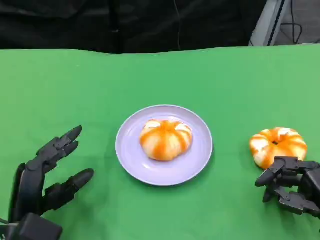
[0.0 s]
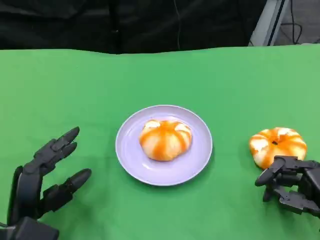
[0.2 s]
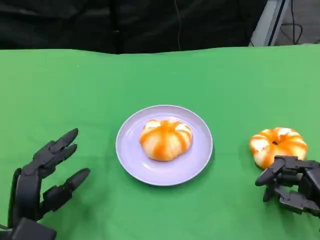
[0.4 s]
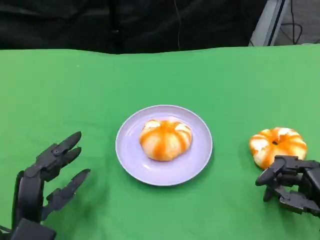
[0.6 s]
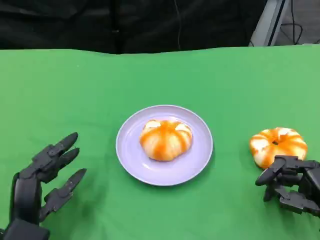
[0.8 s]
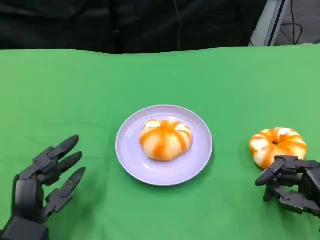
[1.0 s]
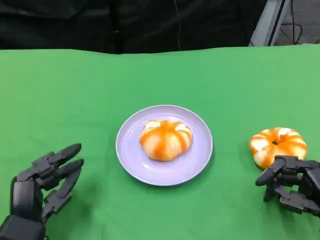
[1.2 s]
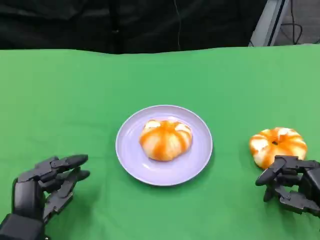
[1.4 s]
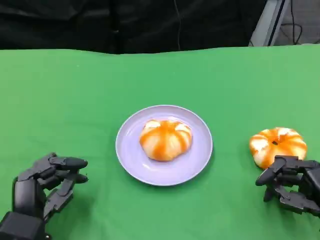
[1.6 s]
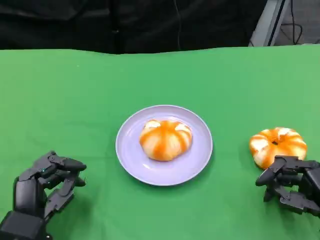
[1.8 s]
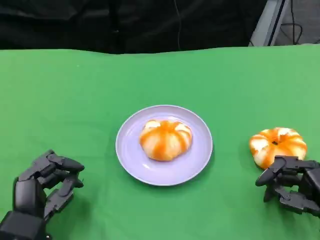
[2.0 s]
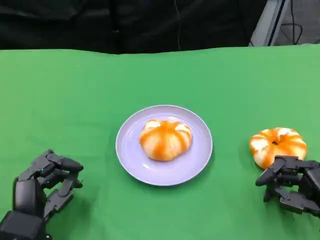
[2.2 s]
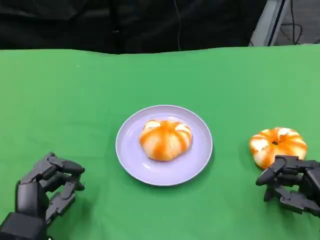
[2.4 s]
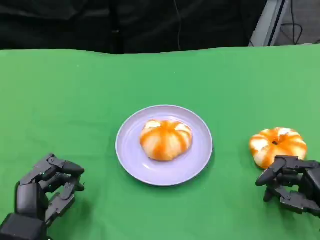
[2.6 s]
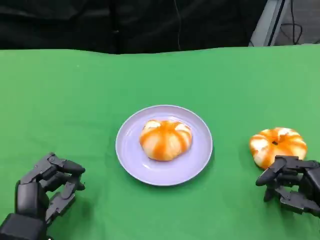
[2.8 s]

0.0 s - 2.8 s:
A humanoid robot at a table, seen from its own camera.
Task of the whole recording: Grasp the bread from the table and place it into the plate.
1.4 s - 2.8 s: Both hands stay put.

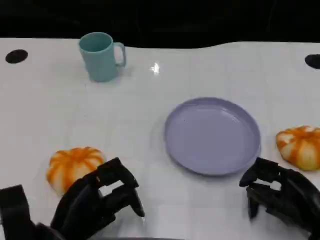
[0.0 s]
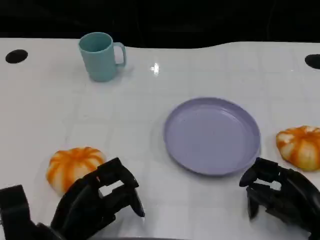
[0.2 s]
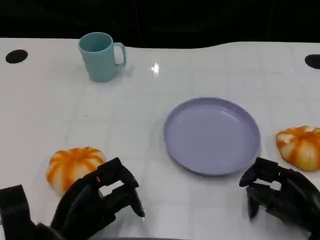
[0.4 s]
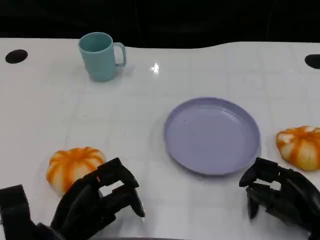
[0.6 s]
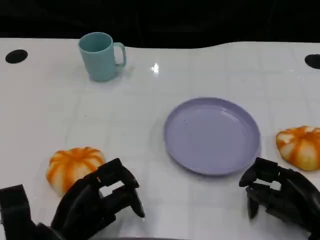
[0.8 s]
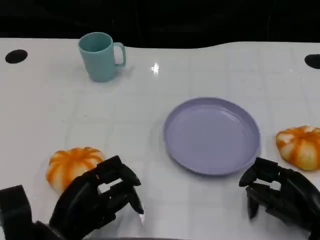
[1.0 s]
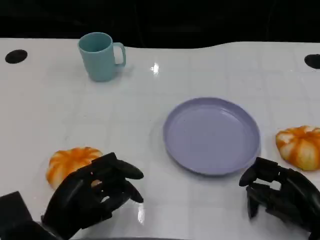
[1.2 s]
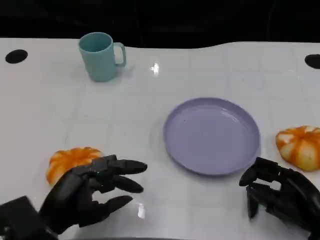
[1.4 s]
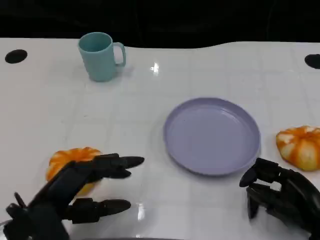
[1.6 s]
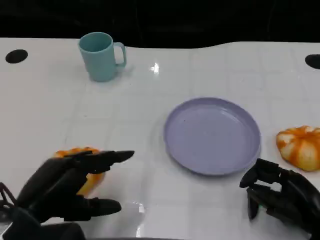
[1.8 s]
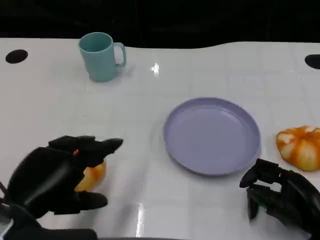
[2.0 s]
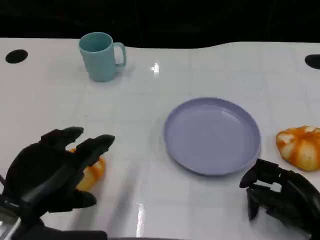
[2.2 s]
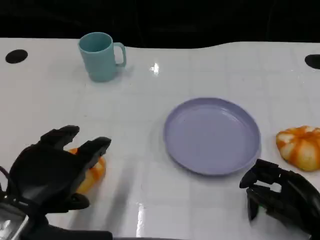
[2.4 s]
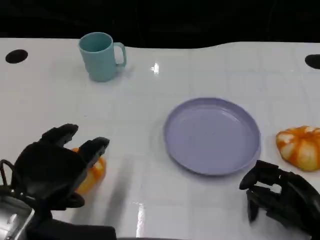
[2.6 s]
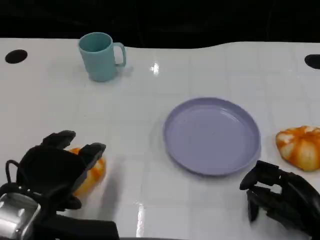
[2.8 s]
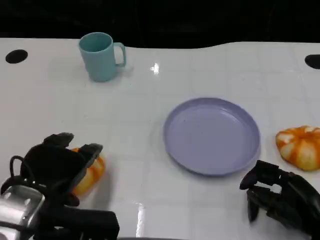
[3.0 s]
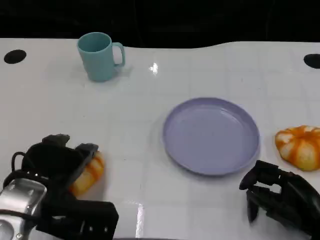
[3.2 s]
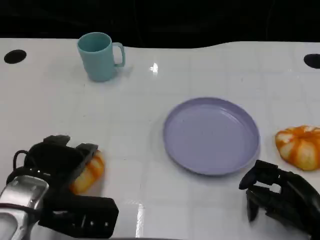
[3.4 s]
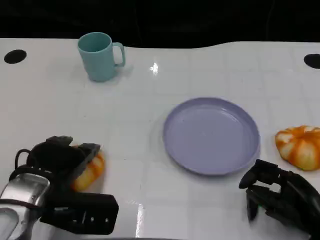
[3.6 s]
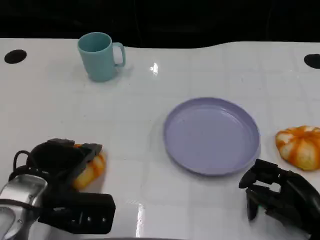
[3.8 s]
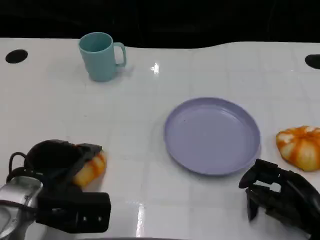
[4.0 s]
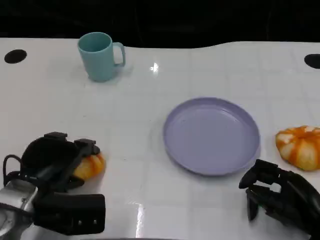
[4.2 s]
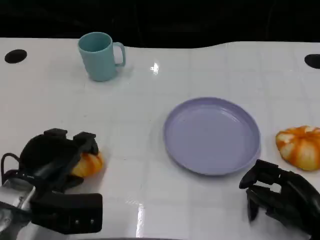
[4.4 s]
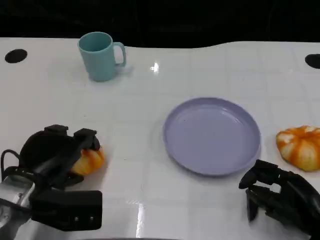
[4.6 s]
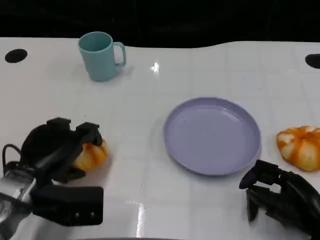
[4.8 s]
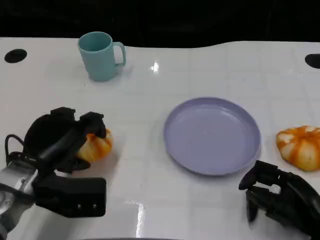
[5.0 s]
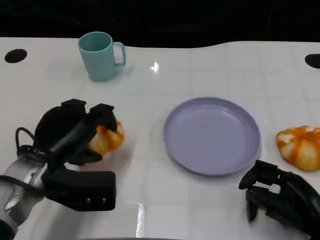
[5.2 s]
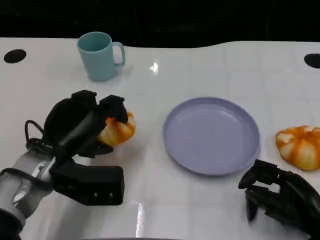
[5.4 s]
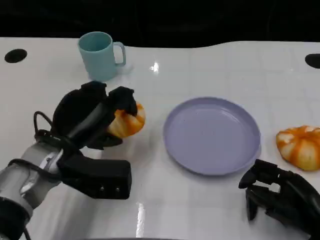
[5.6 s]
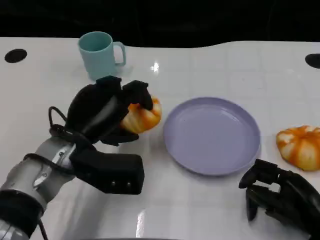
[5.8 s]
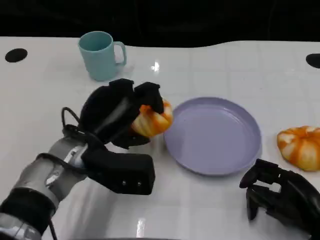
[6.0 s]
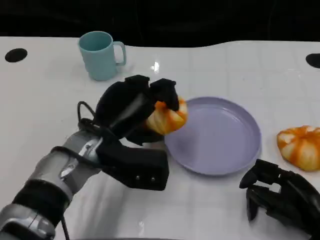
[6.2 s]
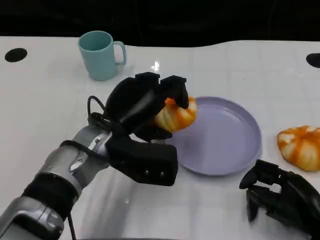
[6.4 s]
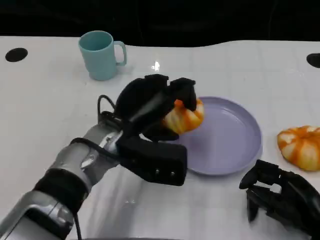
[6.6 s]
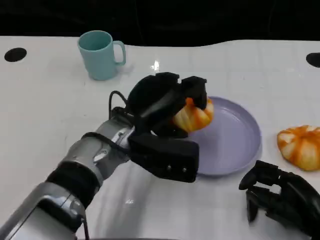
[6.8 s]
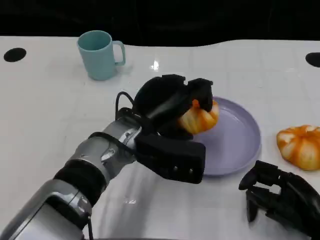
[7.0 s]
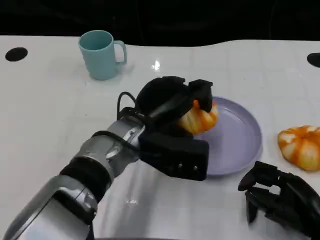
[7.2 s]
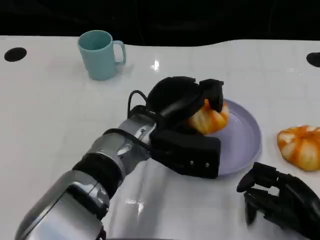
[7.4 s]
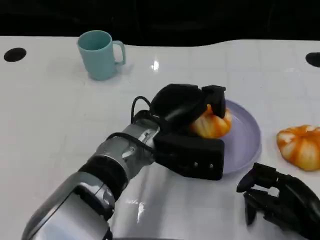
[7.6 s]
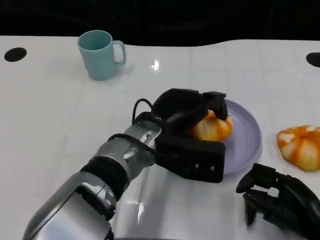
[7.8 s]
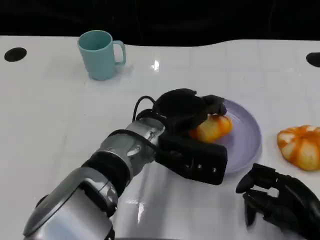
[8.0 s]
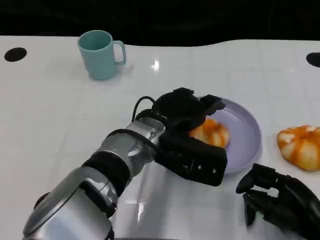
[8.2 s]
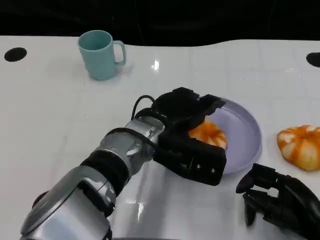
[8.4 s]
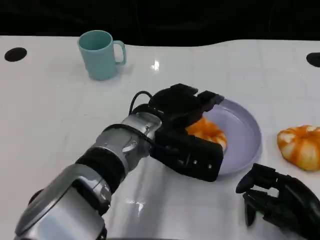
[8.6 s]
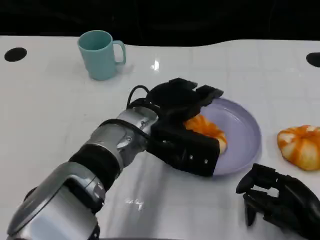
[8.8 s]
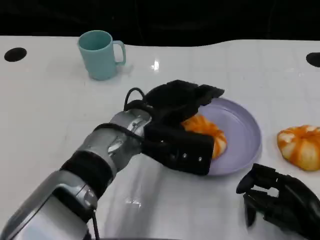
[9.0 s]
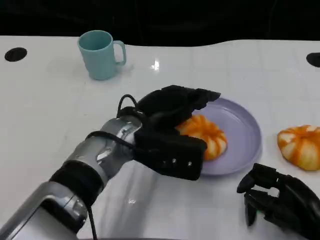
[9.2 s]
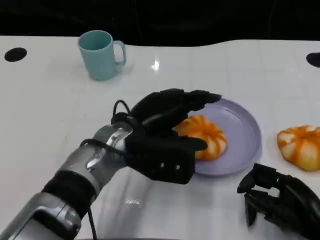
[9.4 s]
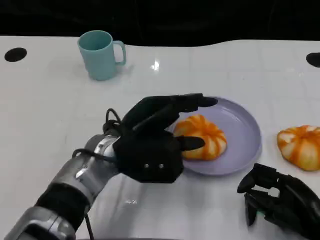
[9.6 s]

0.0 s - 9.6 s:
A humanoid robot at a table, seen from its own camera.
Task of the whole recording: Grasp the bread from the table and place it into the plate.
0.0 s - 1.6 s: The left hand shifts about 5 cm upward.
4.8 s - 6.4 s: The left hand travels to the right by roughly 10 cm.
6.4 s - 8.0 s: The left hand heads to the right, covering some 5 cm.
8.0 s - 9.6 s: The left hand shifts about 5 cm to the left.

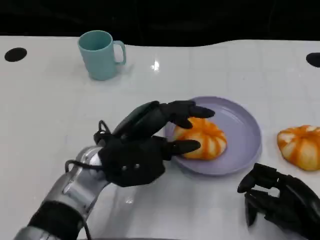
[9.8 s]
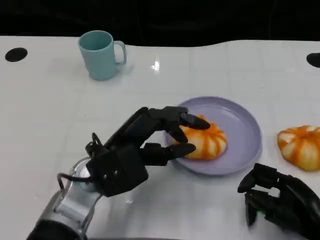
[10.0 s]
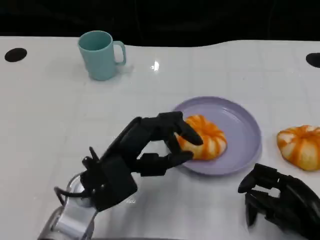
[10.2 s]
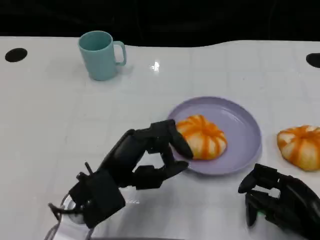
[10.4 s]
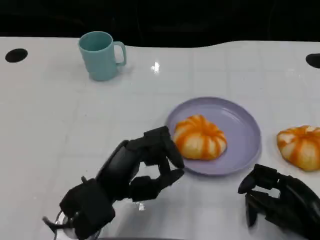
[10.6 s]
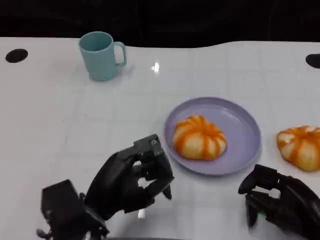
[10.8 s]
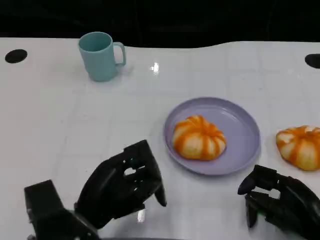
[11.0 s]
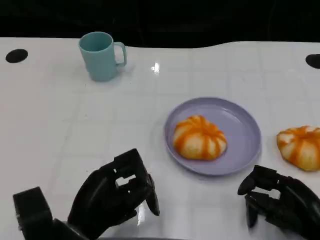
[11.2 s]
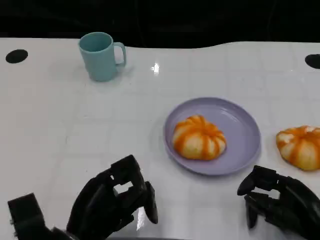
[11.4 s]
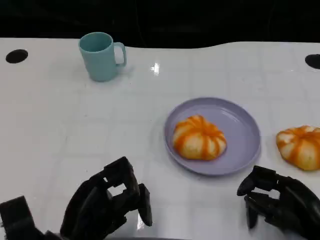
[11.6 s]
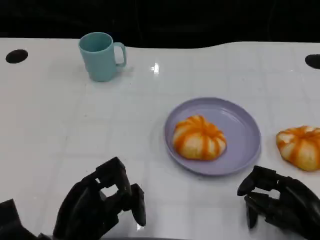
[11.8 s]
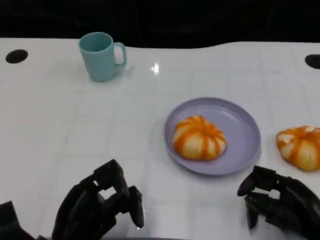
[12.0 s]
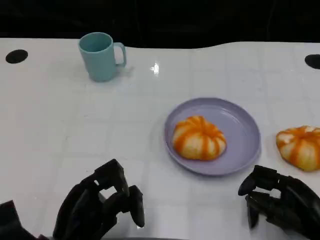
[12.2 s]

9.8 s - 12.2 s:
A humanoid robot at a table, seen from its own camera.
Task of the whole recording: Grasp the bread from the table and place it into the plate.
9.8 s - 11.0 s: The left hand is displaced backward and downward by roughly 10 cm.
11.0 s - 12.2 s: The hands move only a little.

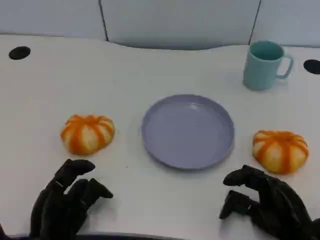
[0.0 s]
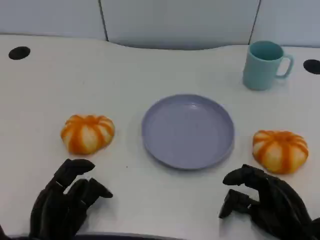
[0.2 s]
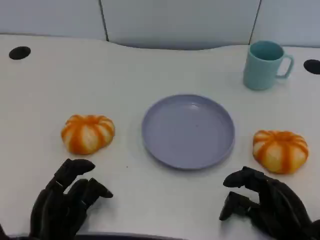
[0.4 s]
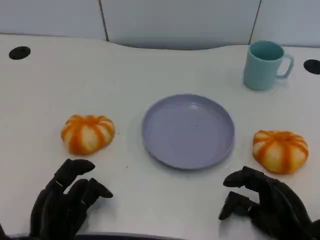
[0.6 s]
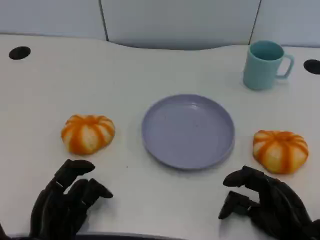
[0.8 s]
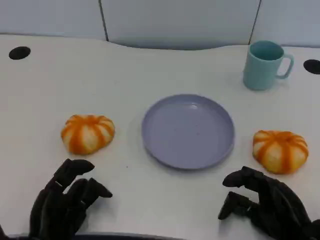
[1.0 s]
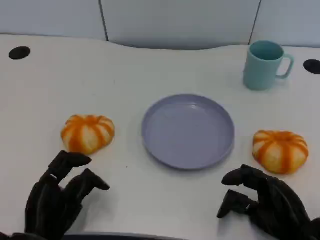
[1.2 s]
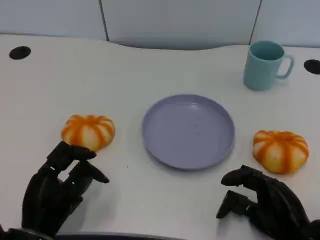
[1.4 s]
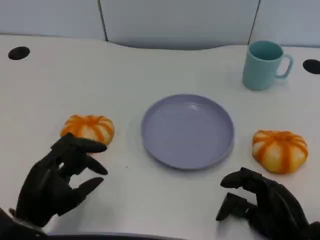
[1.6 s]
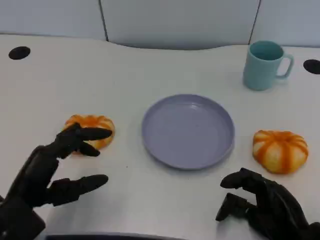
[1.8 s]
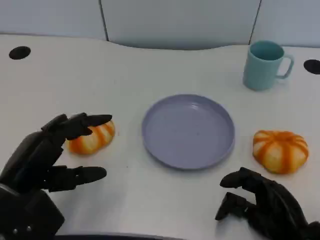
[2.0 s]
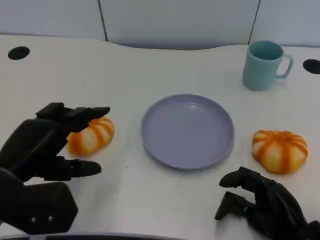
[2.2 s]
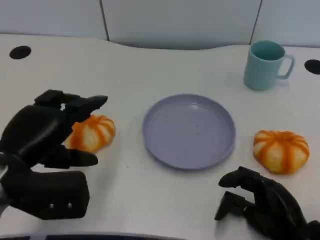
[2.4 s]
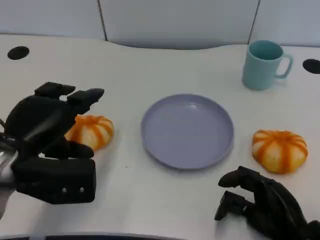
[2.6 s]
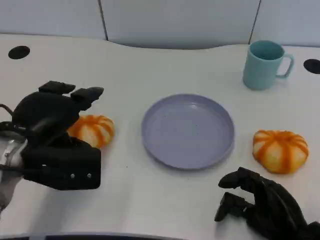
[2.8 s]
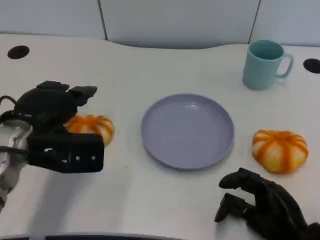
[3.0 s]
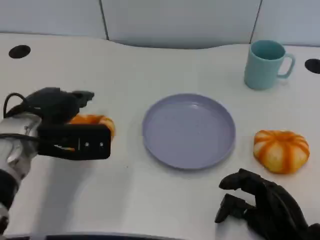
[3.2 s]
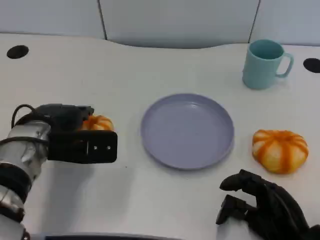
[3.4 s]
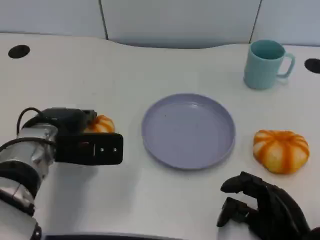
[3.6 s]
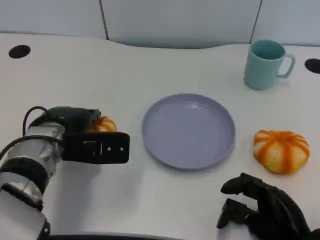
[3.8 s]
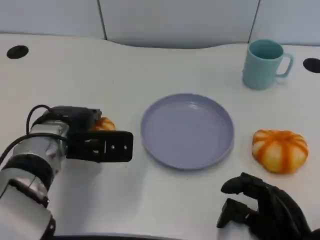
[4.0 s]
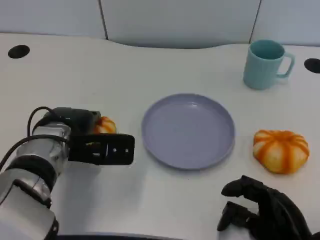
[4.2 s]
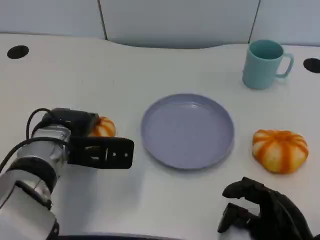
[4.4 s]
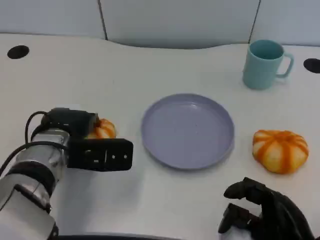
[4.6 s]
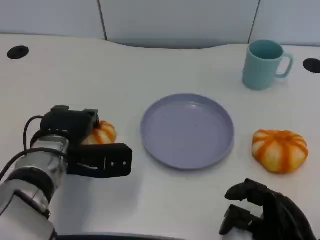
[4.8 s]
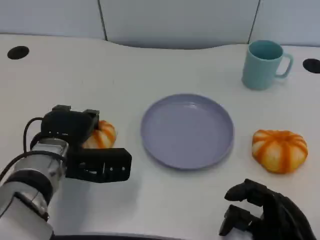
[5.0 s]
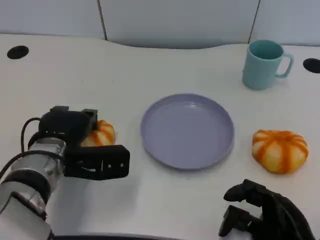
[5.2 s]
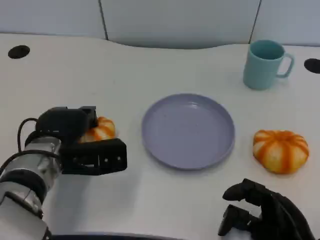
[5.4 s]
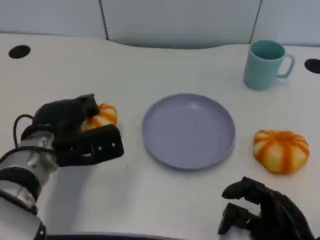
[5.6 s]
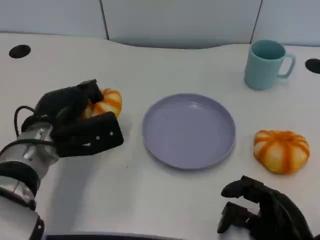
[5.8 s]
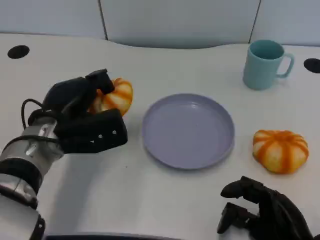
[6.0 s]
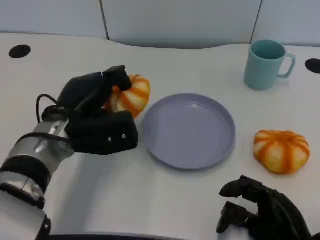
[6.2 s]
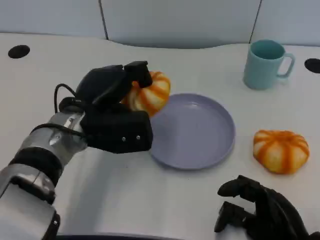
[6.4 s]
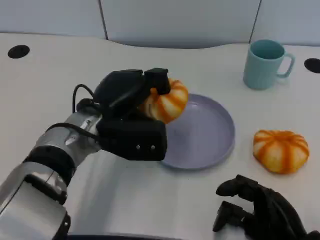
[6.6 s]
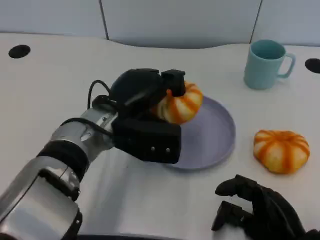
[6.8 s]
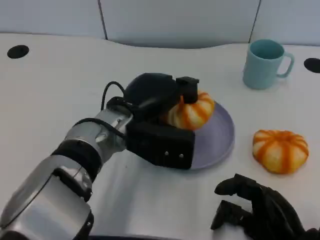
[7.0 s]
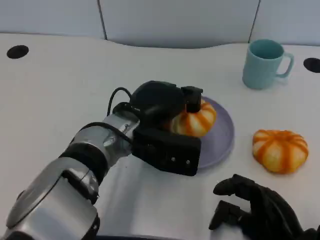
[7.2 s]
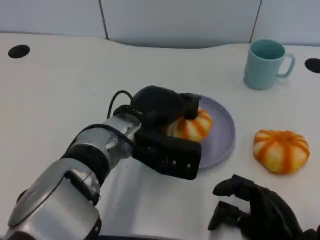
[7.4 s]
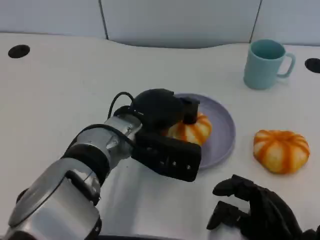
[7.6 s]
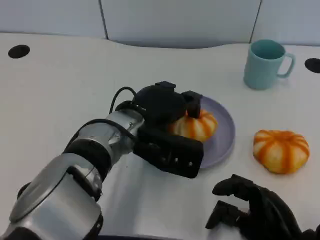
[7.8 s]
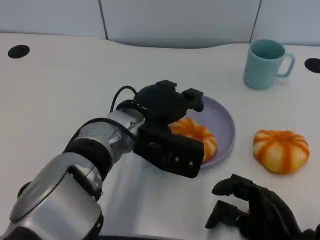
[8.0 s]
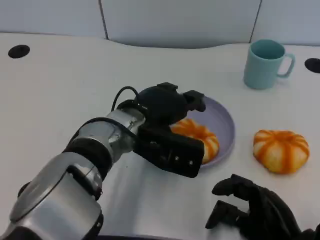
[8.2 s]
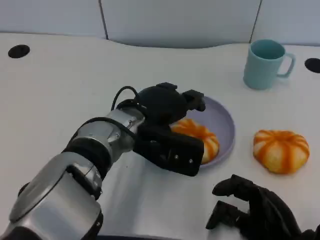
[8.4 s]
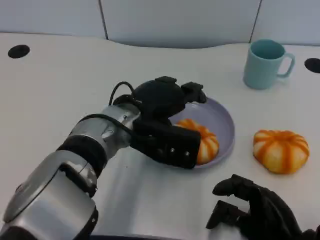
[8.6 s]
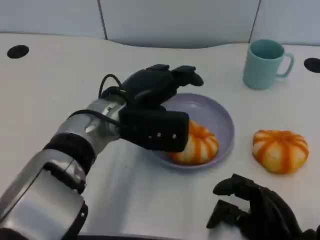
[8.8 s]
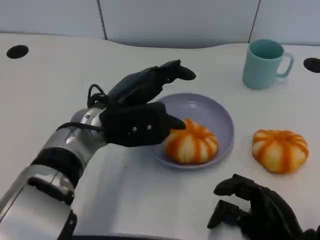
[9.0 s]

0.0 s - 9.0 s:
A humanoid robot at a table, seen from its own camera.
Task of the whole recording: Grasp the bread from the table and place it into the plate.
0.0 s - 1.6 s: The left hand goes approximately 5 cm upward.
1.6 s - 3.0 s: The left hand shifts approximately 15 cm forward and upward.
3.0 s - 4.4 s: The left hand ends up about 5 cm from where it was.
6.0 s - 7.6 s: The left hand travels to the right by roughly 10 cm.
7.6 s - 9.0 s: The left hand ends up some 5 cm from where it was.
